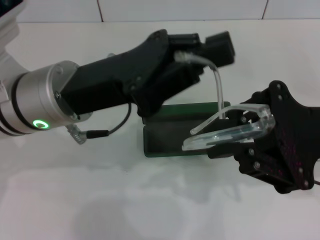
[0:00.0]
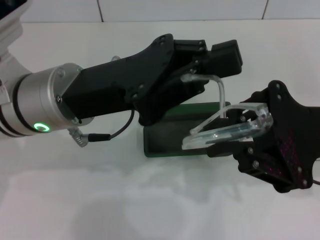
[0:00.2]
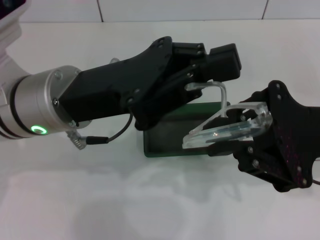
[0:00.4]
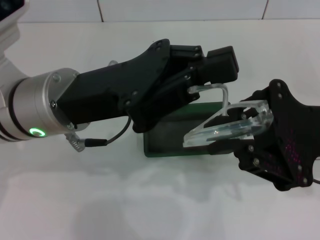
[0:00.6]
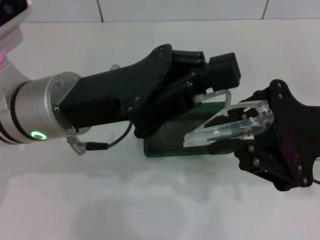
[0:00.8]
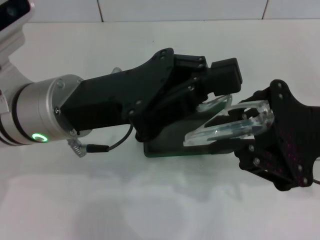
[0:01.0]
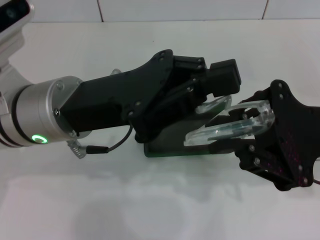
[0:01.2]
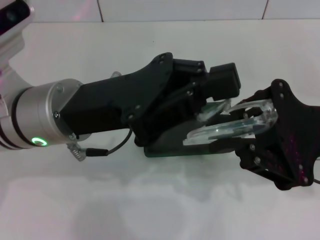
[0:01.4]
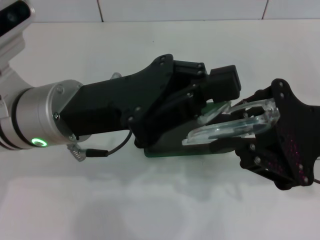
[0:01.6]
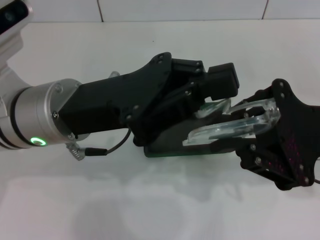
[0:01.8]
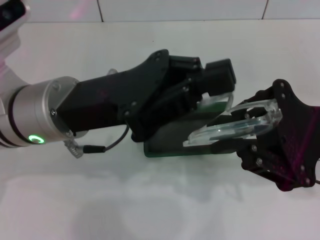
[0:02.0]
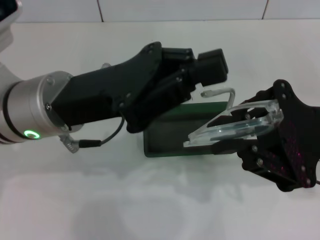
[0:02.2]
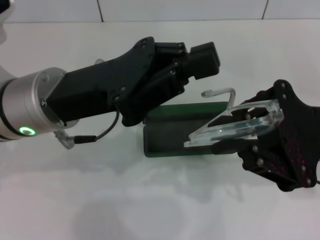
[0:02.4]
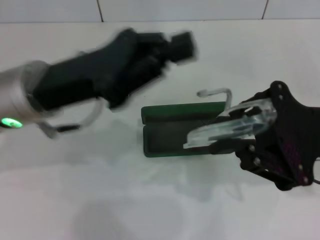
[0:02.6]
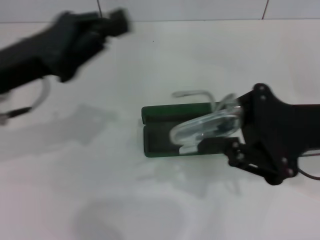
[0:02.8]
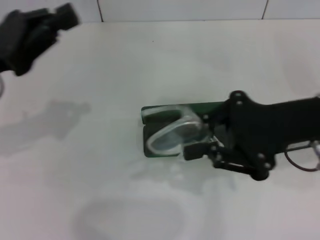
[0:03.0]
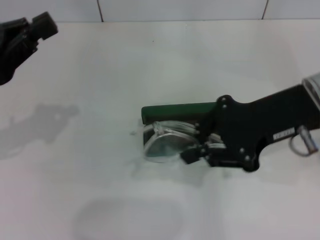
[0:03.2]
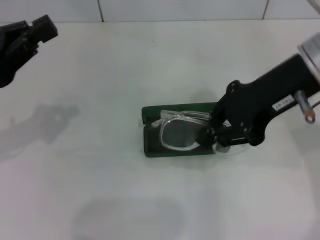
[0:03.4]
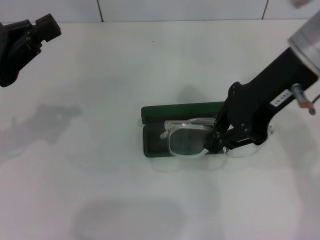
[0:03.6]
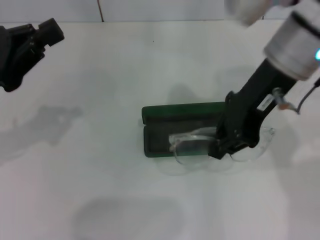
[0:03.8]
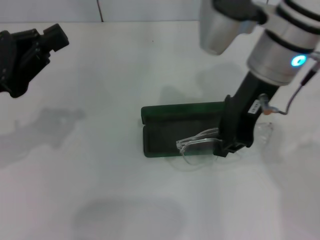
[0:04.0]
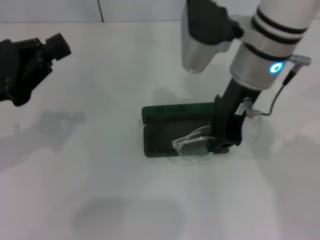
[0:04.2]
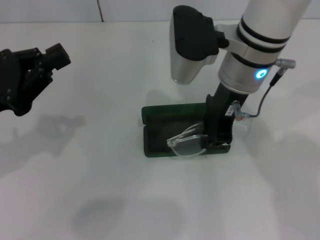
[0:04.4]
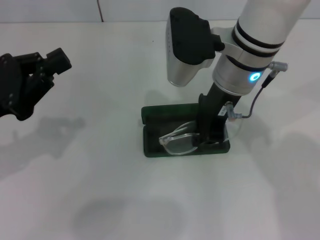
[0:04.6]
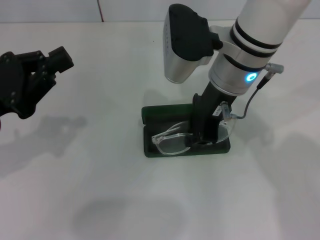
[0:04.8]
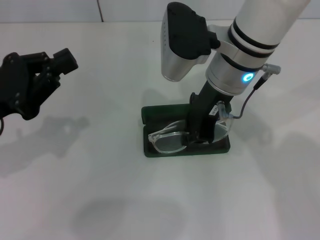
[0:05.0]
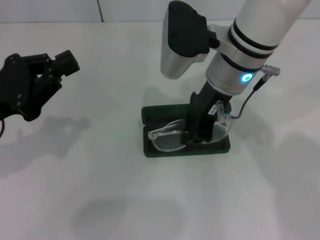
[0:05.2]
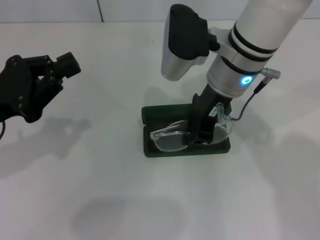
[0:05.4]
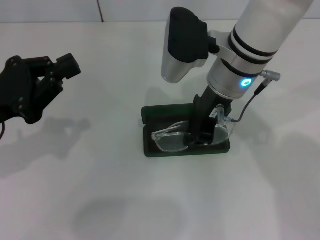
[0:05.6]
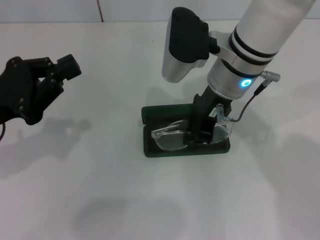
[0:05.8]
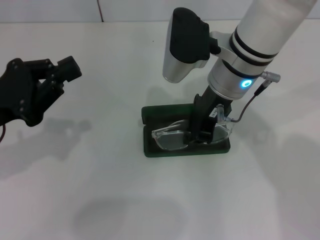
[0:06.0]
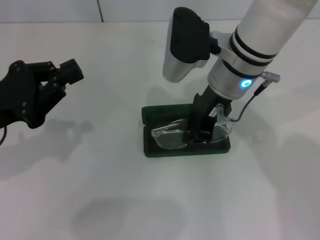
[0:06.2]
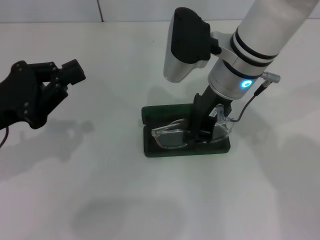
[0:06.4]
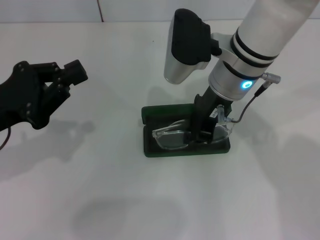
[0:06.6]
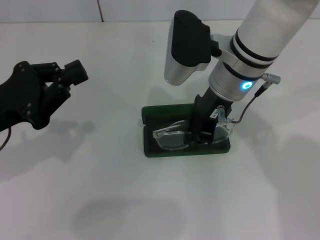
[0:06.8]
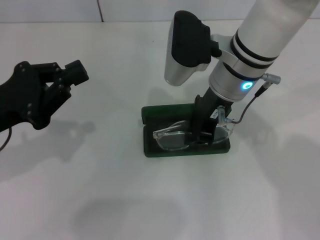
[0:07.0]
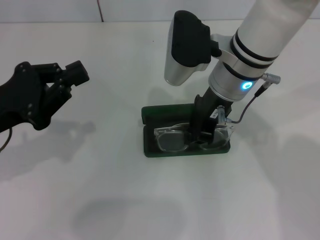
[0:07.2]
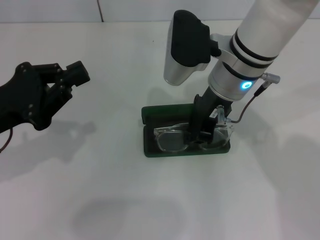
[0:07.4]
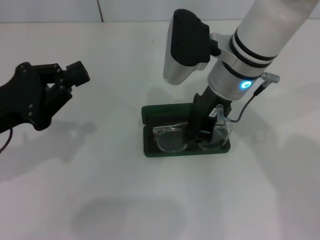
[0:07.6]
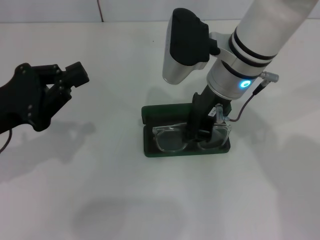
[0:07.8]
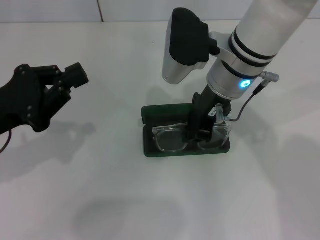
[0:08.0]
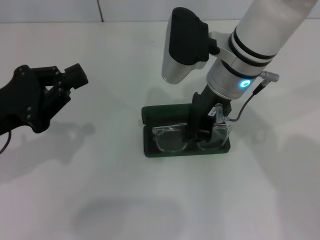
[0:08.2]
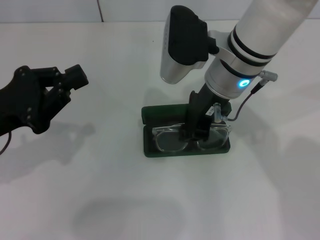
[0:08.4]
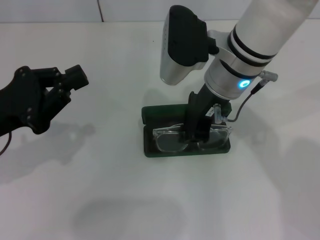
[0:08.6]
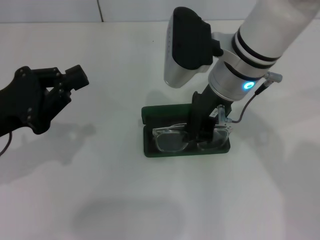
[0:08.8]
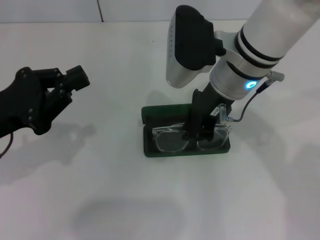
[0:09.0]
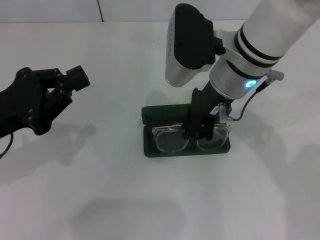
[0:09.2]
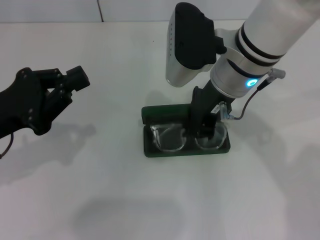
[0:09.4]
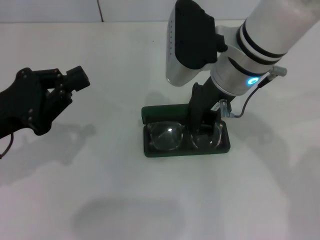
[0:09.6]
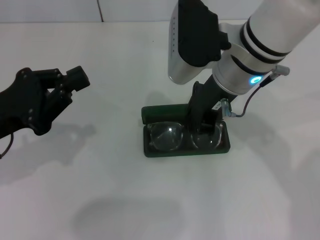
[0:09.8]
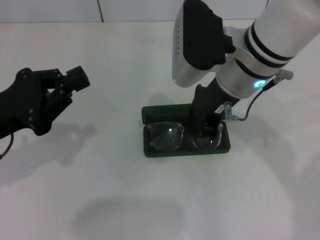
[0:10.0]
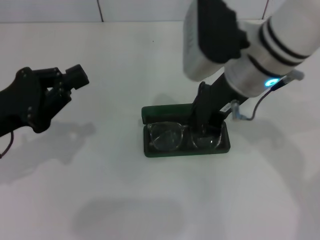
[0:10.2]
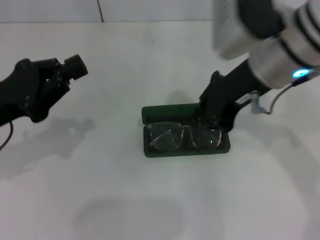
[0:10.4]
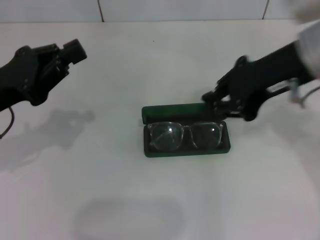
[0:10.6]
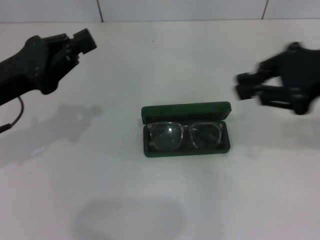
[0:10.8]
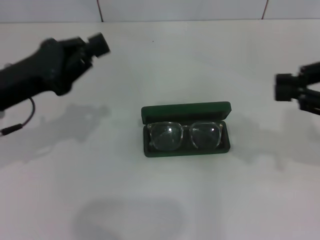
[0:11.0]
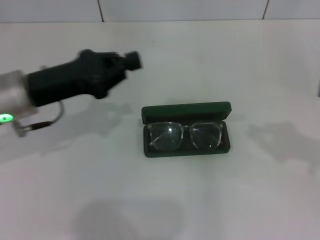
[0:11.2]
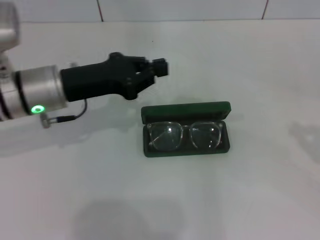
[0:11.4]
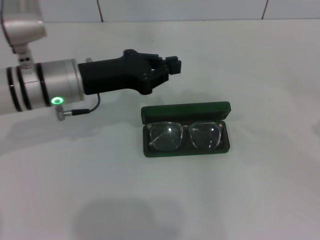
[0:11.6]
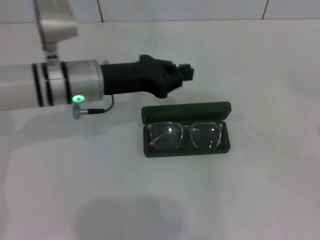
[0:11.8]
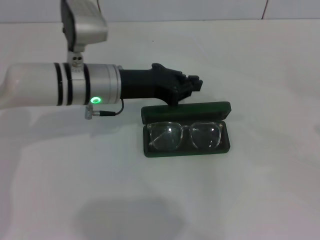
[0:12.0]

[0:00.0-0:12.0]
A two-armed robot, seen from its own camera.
Step, 0:01.8 to 0:08.2: Put the glasses into the case with your right hand.
0:01.6 to 0:03.0: The left gripper shifts about 15 cm to the left.
0:03.0 to 0:04.4: The right gripper shifts approximately 15 cm to the left and forward.
0:04.4 to 0:06.0: The grippers make only small movements.
0:06.0 to 0:07.6: Both grippers stay about where they are.
0:07.6 to 0:09.0: There are only small adjustments of the grippers.
0:09.0 to 0:10.4: The right gripper moves approximately 5 cm.
0:10.4 to 0:12.0: The left gripper moves to the right and forward, some 20 cm; the right gripper moves to the right and backward, about 35 cm.

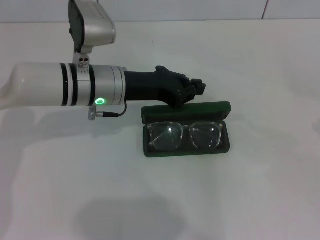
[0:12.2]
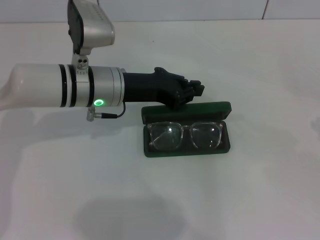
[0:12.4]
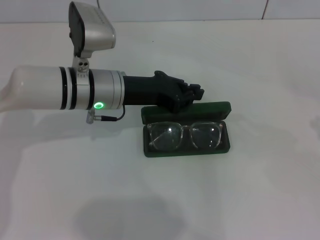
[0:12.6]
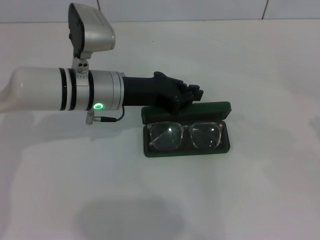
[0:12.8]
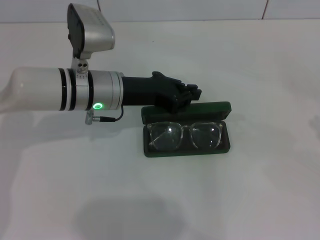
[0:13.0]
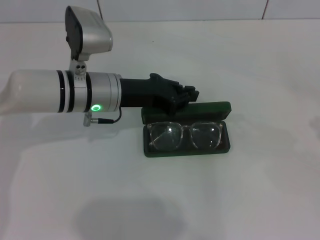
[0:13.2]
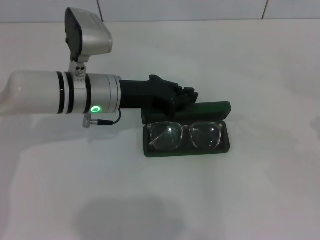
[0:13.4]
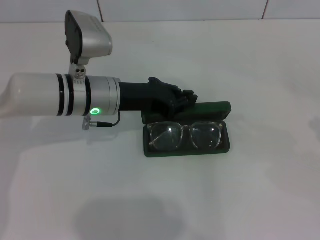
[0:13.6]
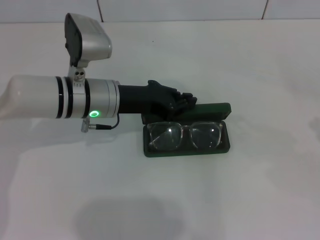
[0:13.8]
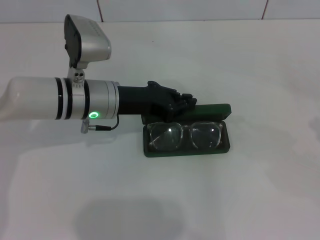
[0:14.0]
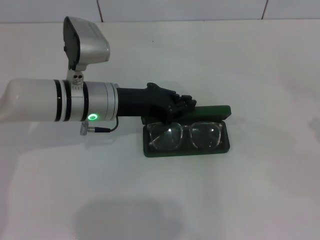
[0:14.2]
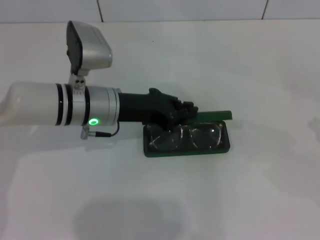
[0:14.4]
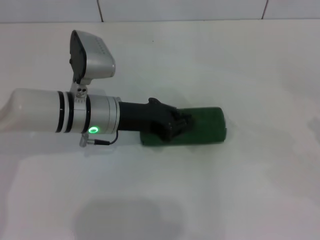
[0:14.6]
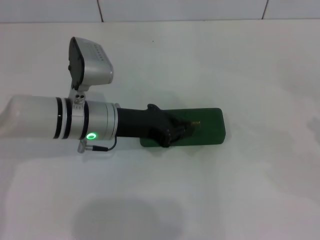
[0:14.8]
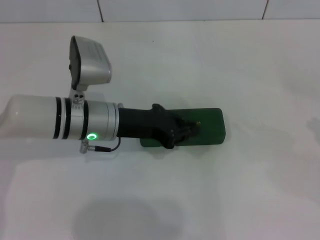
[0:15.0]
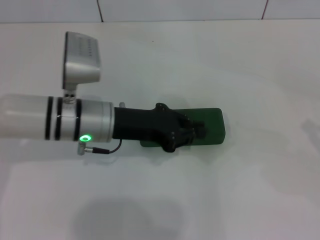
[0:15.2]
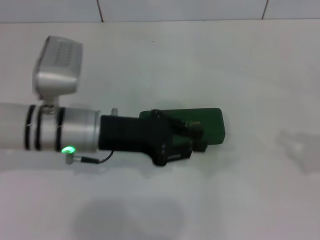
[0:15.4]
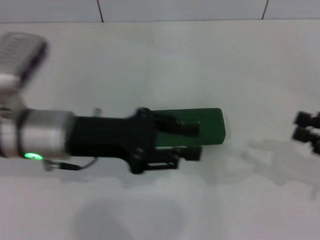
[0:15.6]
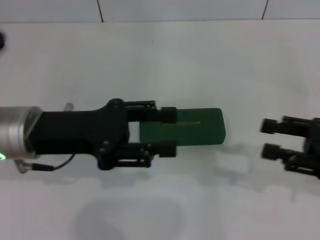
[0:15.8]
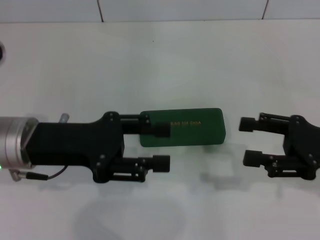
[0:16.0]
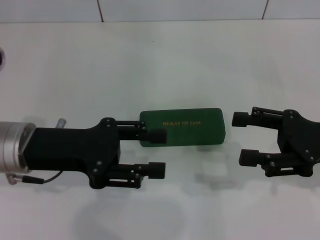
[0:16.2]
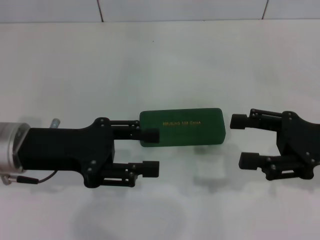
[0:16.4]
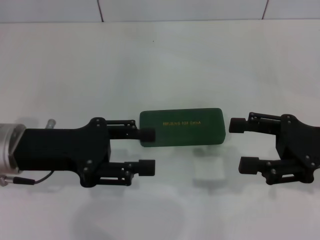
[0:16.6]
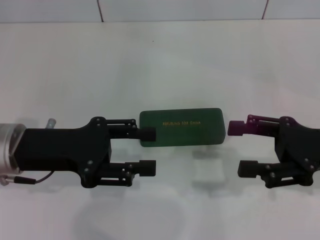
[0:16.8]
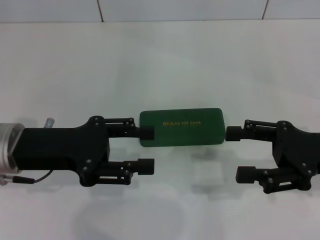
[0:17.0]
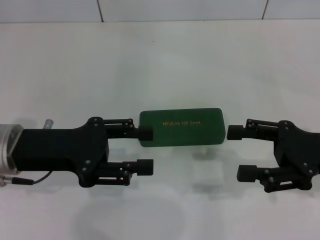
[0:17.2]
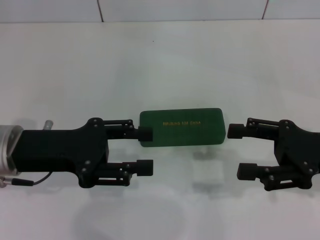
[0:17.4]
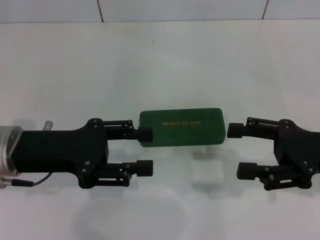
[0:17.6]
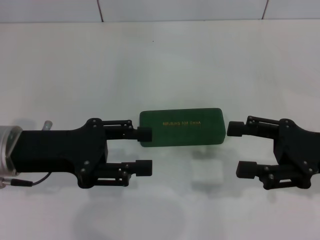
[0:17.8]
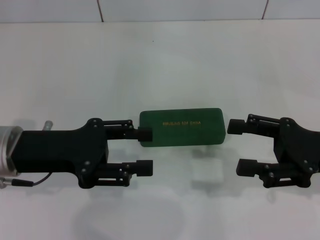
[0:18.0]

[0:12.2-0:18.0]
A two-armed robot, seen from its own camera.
Step, 0:12.2 to 0:14.6: Close the glasses case with your left hand.
0:12.2 to 0:15.0: The grippers stay close to where they were, moving slightly.
0:15.0 to 0:16.6: The right gripper is displaced to the left by about 15 cm, and opens its fingers; the left gripper heads to the left and backward, covering about 10 cm, and opens up.
0:16.6 to 0:18.0: Both grippers stay about where they are.

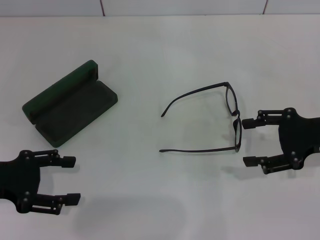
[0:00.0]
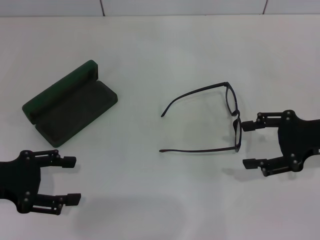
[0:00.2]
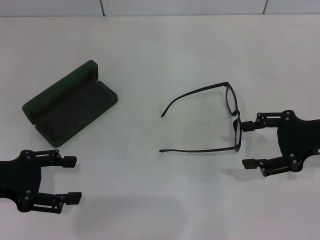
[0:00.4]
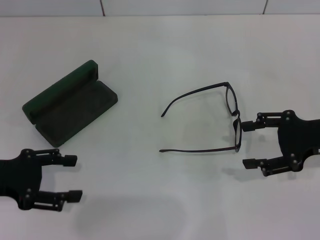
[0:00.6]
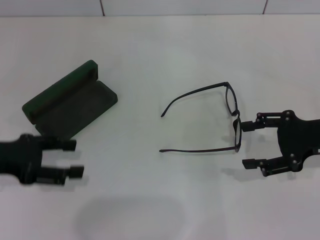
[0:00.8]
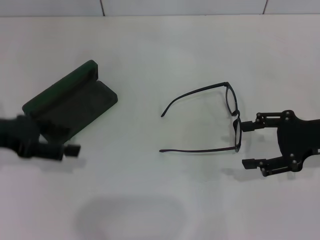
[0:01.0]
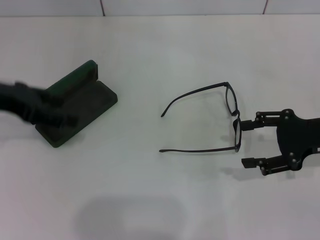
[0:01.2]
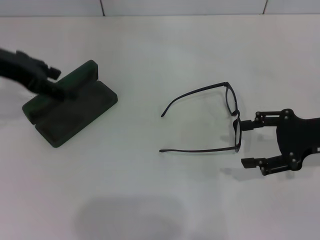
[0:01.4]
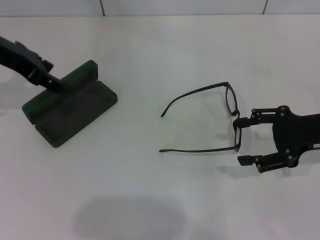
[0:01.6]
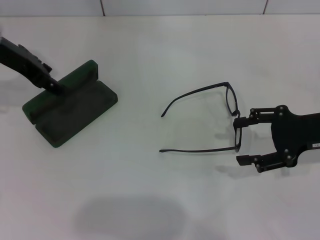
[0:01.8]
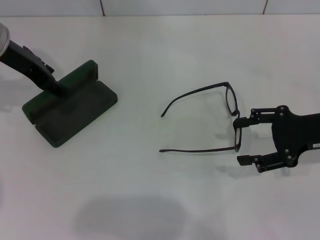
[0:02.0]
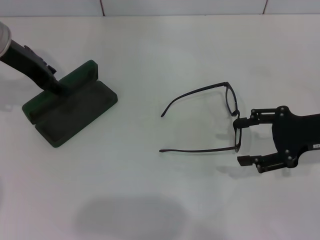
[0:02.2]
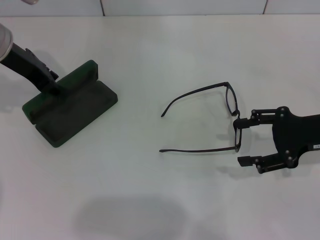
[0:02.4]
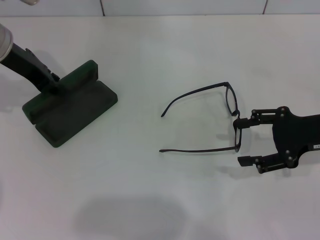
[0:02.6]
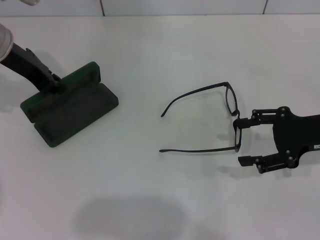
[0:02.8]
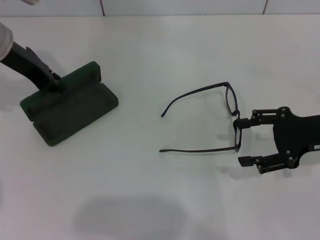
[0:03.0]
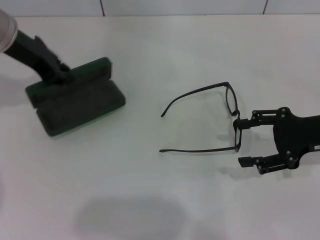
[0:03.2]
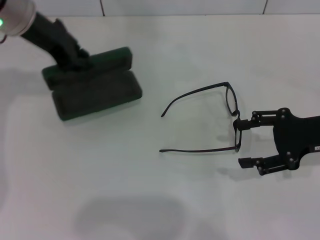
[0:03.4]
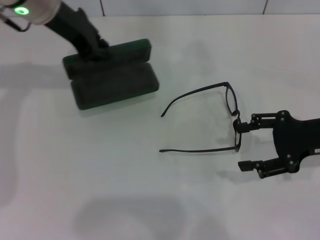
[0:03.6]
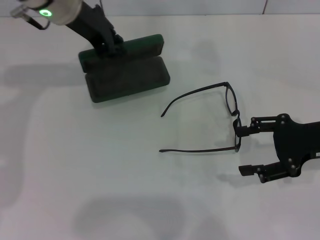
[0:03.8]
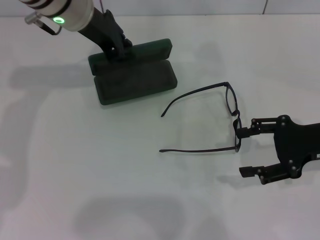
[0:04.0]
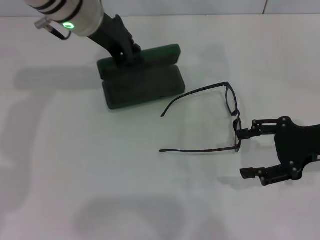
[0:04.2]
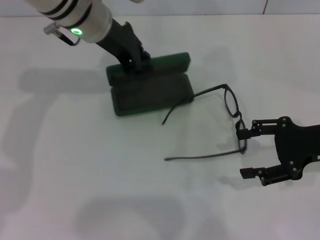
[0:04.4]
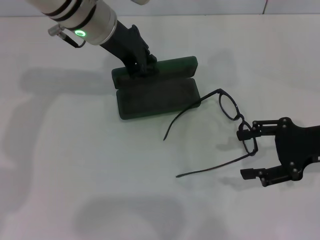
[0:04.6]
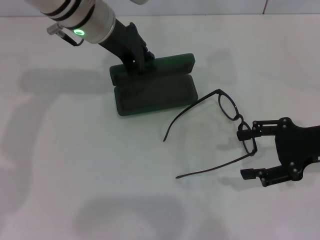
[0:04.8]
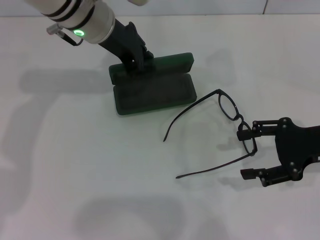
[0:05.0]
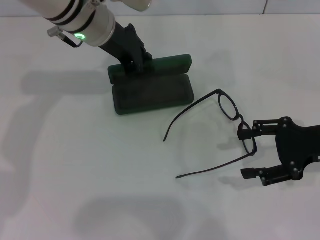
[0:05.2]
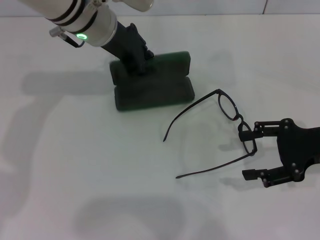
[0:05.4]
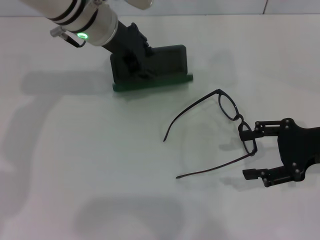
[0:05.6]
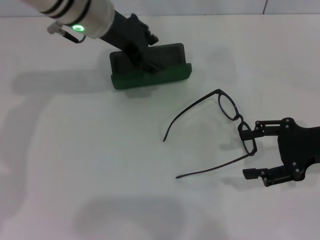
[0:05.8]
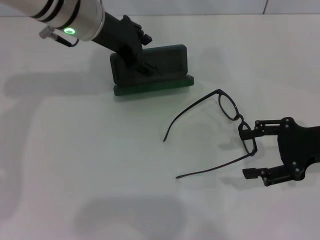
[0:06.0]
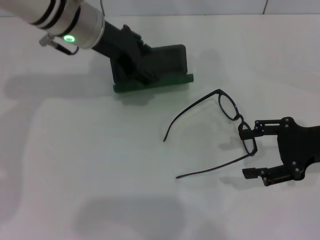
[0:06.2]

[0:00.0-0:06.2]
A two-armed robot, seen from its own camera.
Step, 0:00.0 to 0:02.6: Grab the glasses case with your left hand.
0:00.0 to 0:01.6: The left gripper shifts approximately 20 cm forward and upward.
0:01.6 to 0:03.2: The left gripper closes.
0:03.2 to 0:04.6: The left gripper is displaced to the right by about 10 cm.
0:04.6 to 0:06.2: The left gripper opens.
